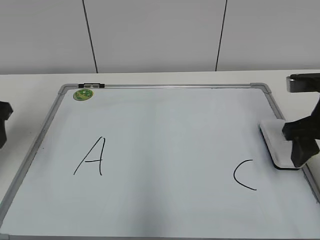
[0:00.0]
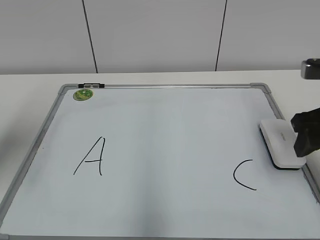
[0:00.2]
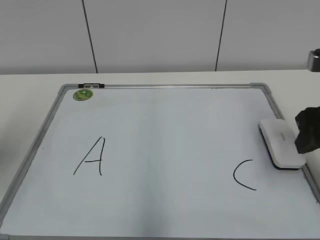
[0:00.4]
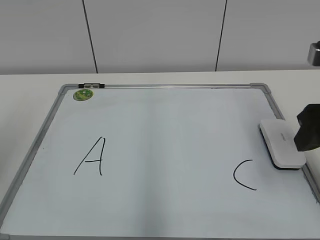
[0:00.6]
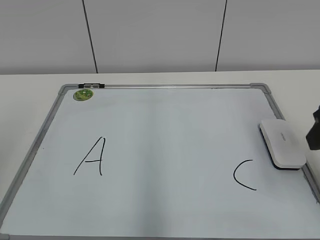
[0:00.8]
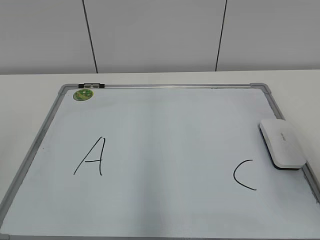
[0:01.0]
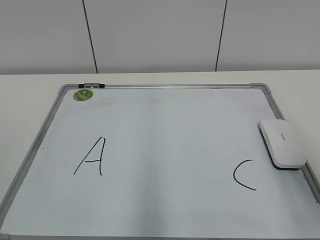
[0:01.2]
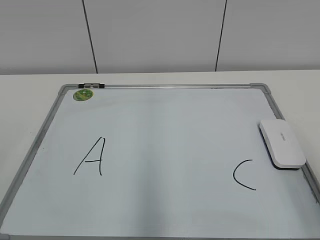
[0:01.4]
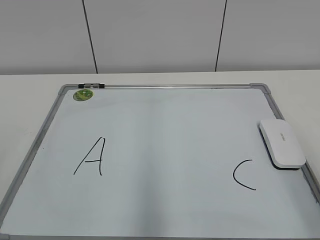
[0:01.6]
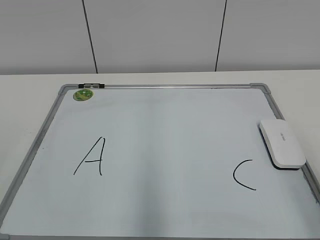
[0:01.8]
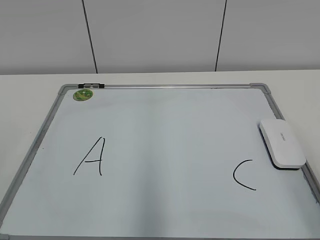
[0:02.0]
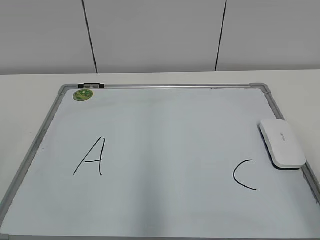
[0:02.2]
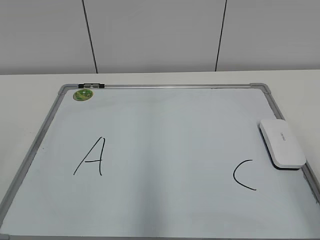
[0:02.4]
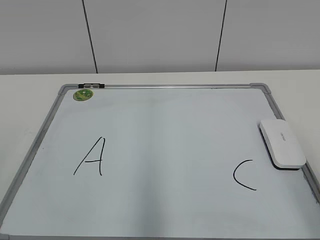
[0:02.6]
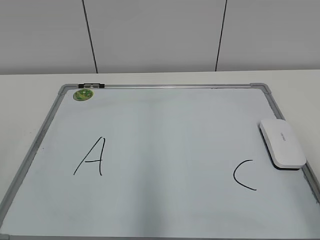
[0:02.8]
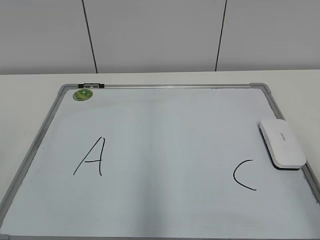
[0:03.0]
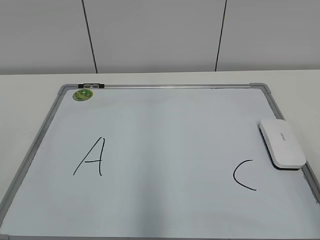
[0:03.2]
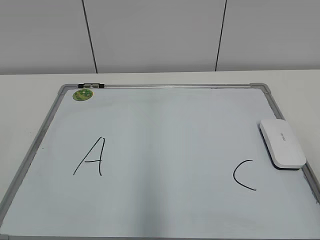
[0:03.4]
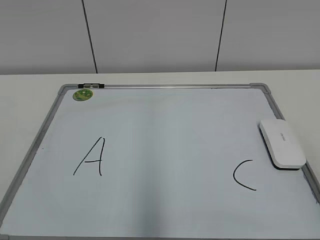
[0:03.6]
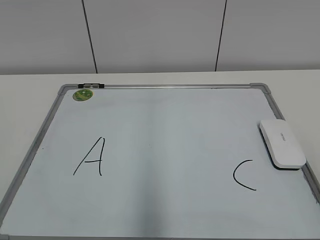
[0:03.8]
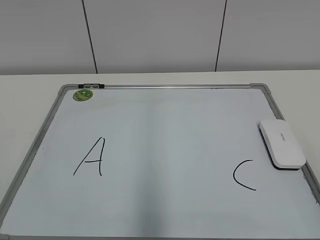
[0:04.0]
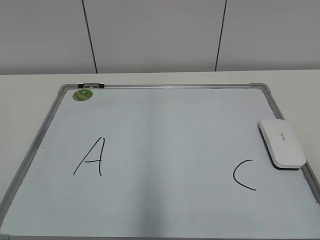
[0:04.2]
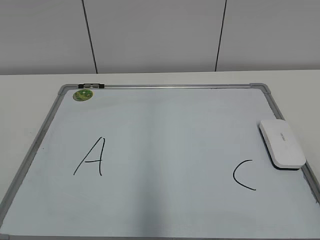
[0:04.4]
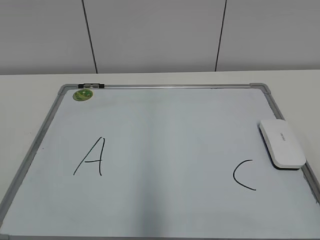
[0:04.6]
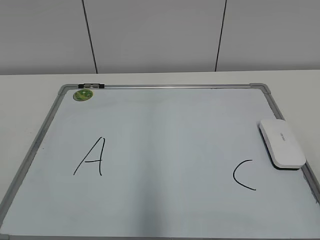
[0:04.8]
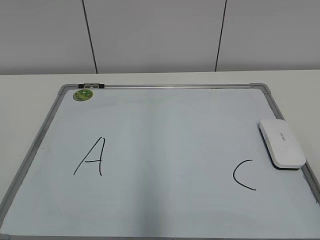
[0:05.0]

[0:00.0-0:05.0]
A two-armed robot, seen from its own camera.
Task of the whole recording: pick up the eraser on the blackboard and erase the letter "B".
0:00.0 to 0:01.6: Both grippers travel together backward, roughly 25 cm.
